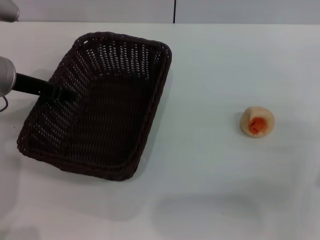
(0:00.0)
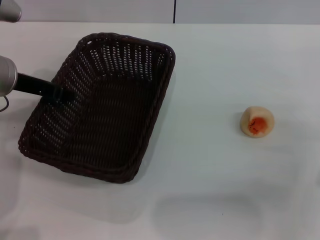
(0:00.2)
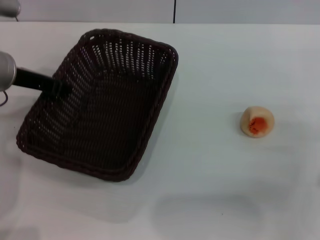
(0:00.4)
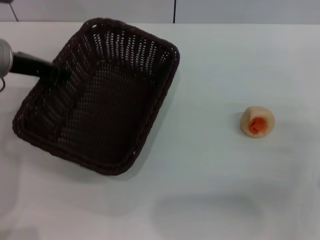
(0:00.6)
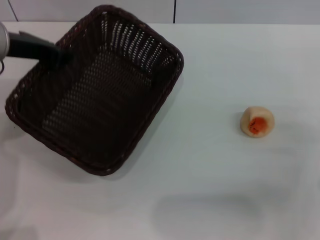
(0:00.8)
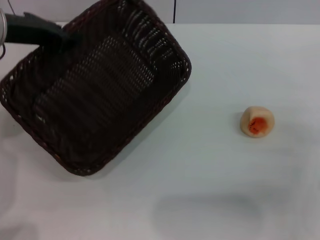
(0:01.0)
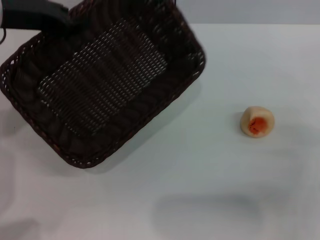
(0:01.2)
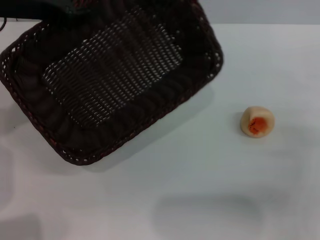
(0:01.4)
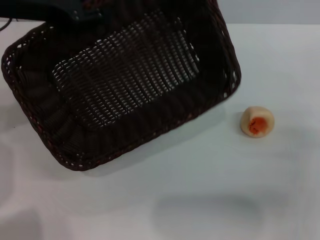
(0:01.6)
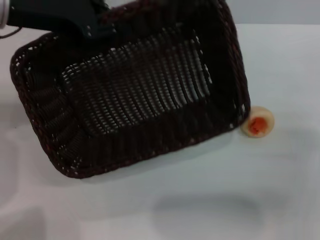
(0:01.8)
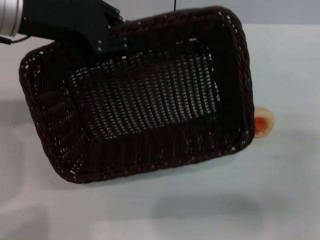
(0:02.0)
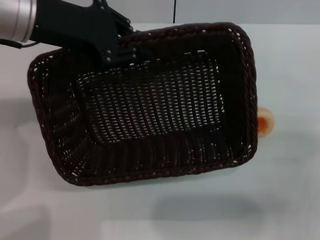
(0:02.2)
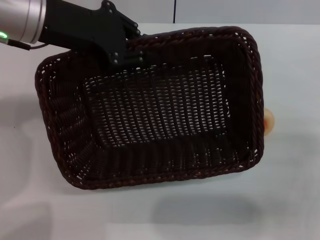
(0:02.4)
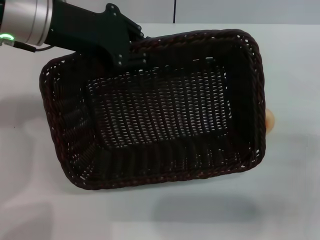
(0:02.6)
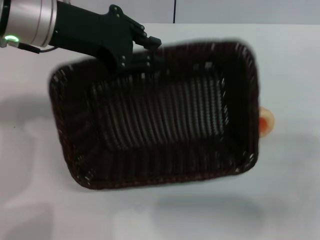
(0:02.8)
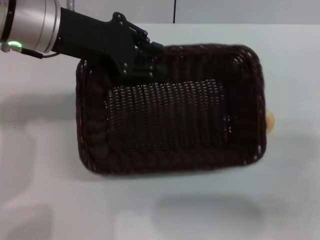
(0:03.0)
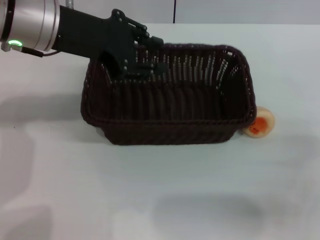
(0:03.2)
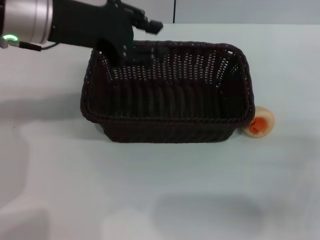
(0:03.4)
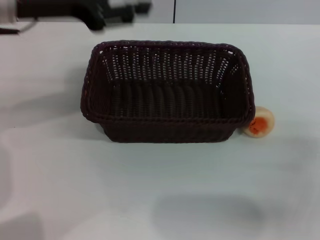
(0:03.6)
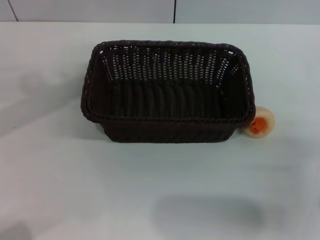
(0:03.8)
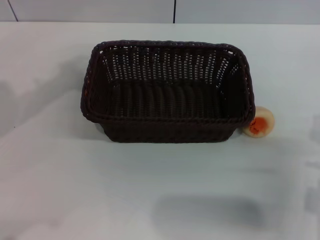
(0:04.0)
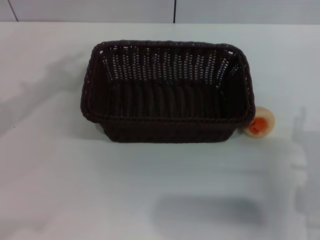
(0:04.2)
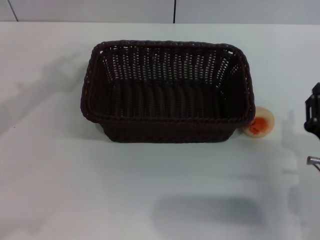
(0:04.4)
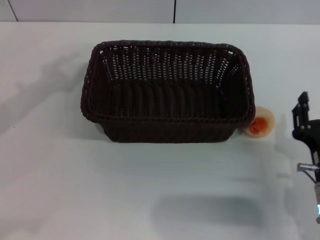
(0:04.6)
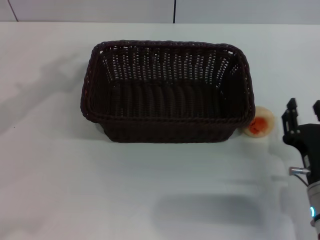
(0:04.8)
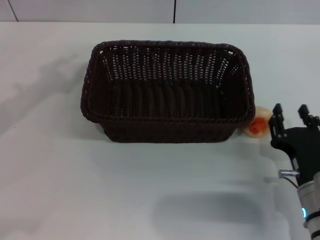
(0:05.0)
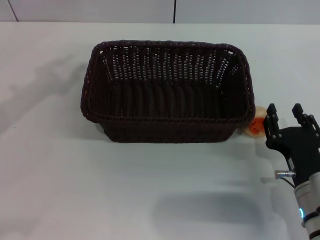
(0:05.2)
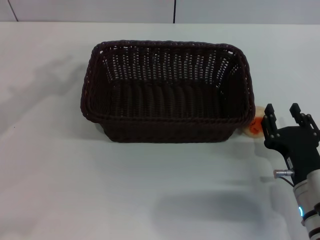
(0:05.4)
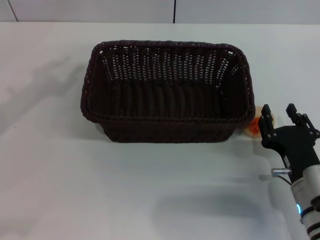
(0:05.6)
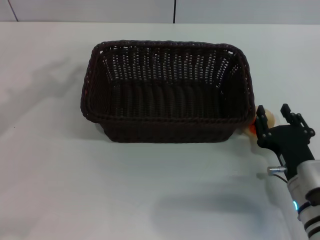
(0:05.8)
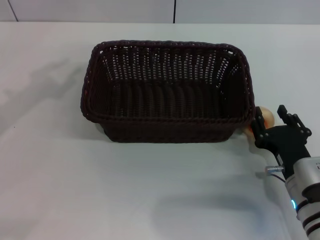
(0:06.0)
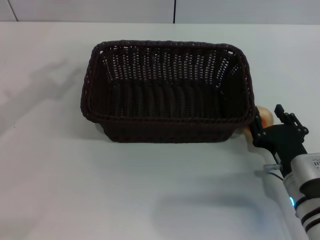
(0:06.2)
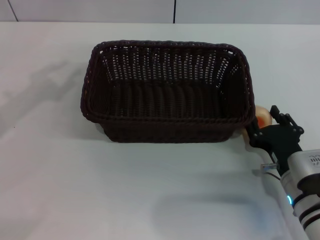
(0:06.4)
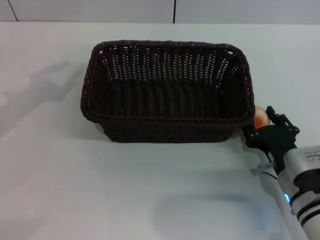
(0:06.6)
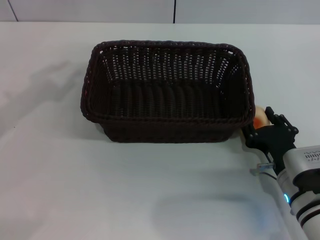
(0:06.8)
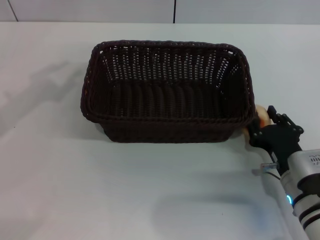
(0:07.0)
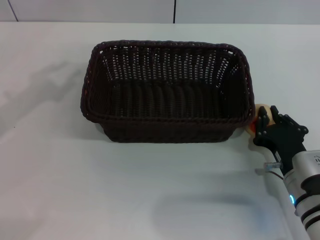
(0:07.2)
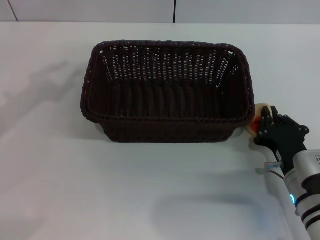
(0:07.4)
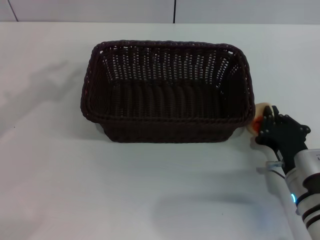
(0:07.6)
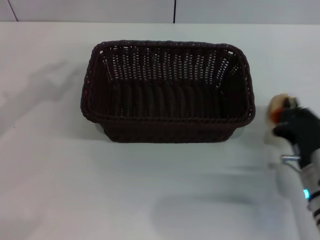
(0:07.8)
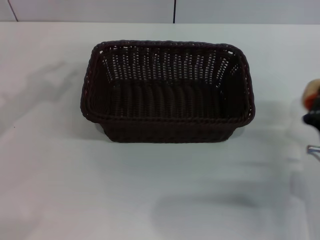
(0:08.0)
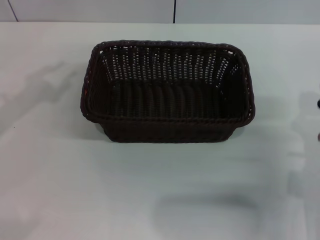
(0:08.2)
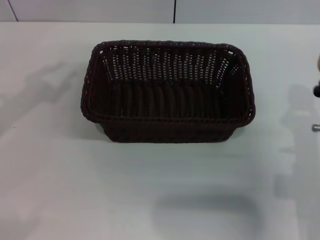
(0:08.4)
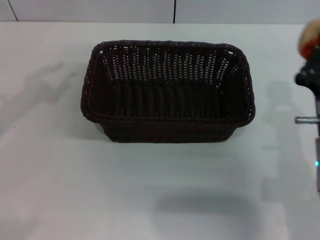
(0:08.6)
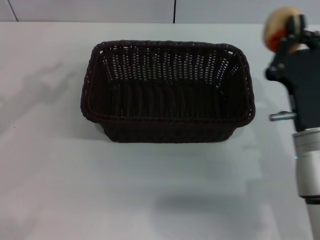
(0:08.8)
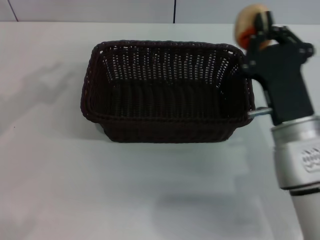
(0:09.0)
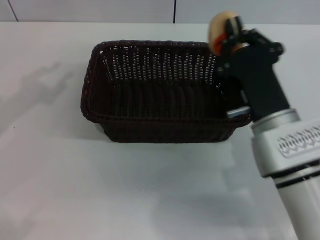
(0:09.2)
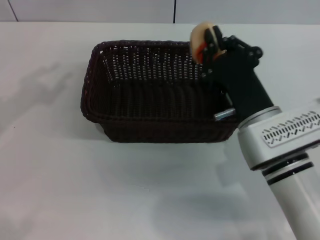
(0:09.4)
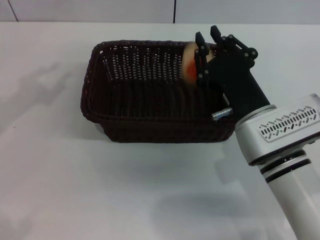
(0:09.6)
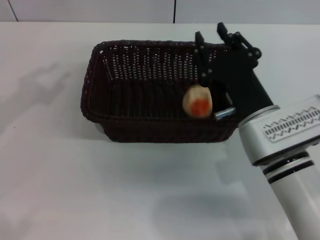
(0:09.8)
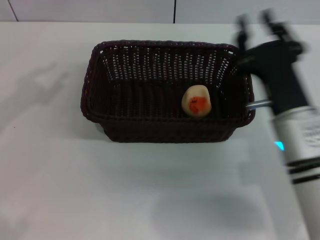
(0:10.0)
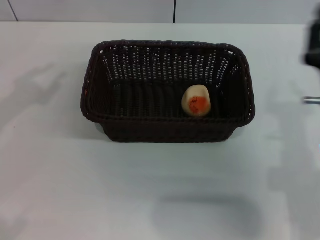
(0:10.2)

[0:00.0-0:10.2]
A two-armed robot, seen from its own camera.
Step, 0:00.0 to 0:03.4: Move the basket to the center of view with the left gripper.
Step, 0:03.6 to 0:07.8: Pick up the egg yolk pastry with the right gripper.
Step, 0:08.0 to 0:10.0: Place the egg yolk pastry into the basket with the right gripper.
0:00.0 to 0:01.4: The left gripper travels upward by some 10 cm, and closes up.
0:01.4 to 0:03.0: The left gripper goes about 5 cm to the right.
0:03.0 to 0:04.4: The left gripper shifts roughly 15 cm to the left. The right gripper goes approximately 5 cm to the left.
0:04.4 to 0:05.8: The grippers stay close to where they were, moving slightly.
0:05.8 to 0:07.2: There are only small adjustments of the grippers.
0:07.2 to 0:08.8: The right gripper goes about 10 cm upward, and closes.
0:08.8 to 0:10.2: The right gripper opens its fingers.

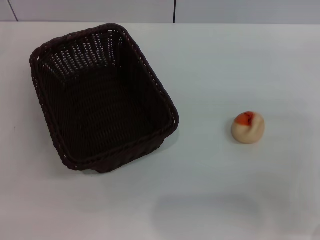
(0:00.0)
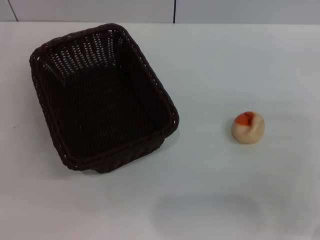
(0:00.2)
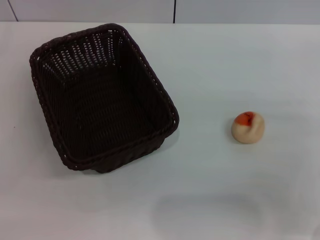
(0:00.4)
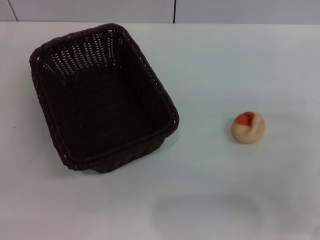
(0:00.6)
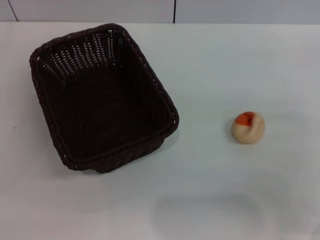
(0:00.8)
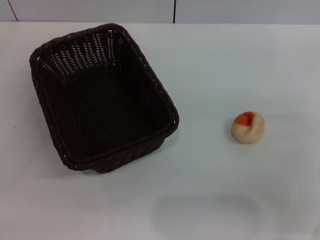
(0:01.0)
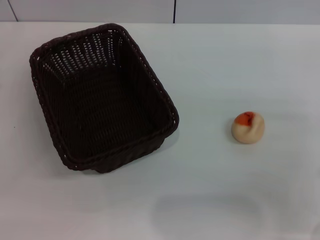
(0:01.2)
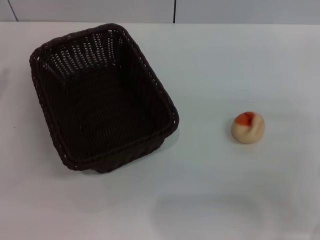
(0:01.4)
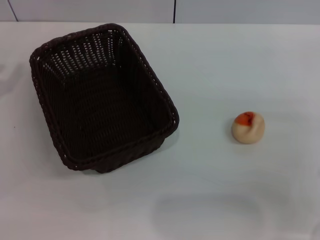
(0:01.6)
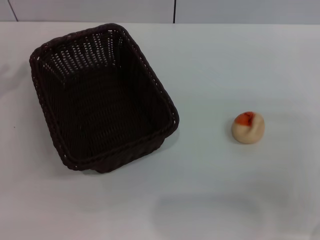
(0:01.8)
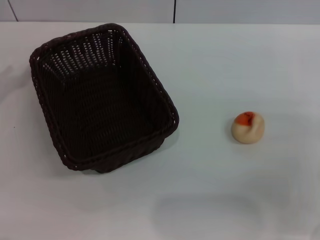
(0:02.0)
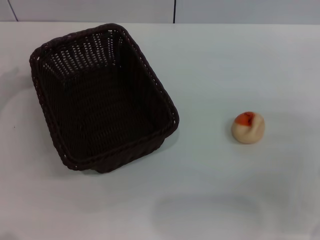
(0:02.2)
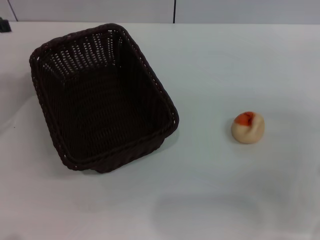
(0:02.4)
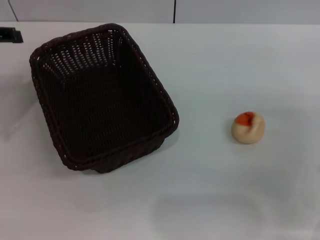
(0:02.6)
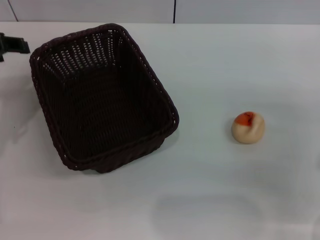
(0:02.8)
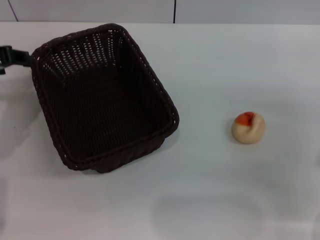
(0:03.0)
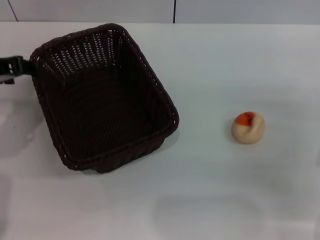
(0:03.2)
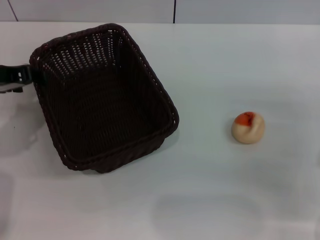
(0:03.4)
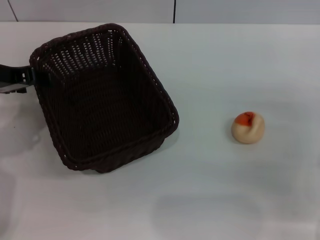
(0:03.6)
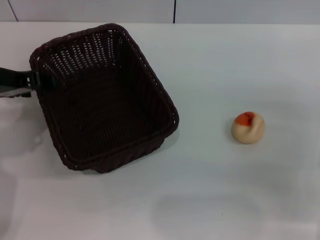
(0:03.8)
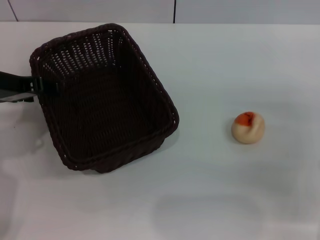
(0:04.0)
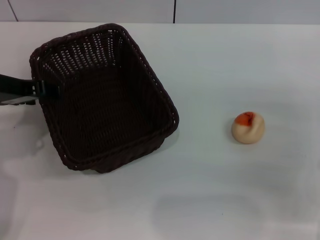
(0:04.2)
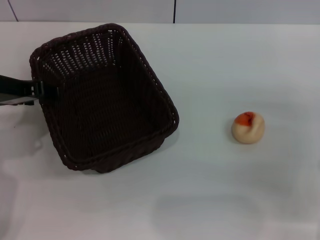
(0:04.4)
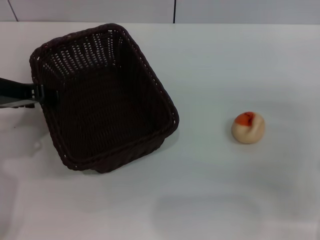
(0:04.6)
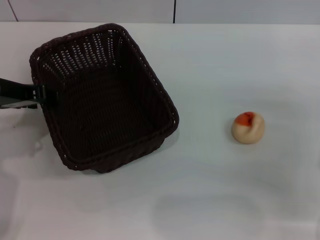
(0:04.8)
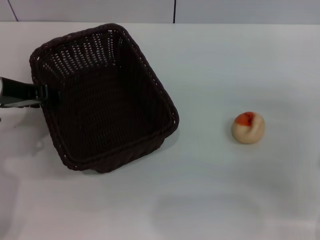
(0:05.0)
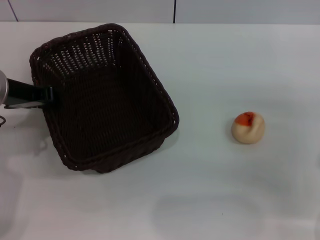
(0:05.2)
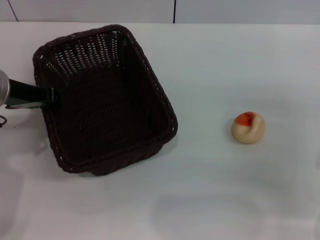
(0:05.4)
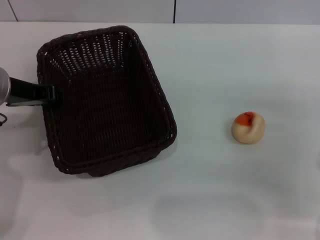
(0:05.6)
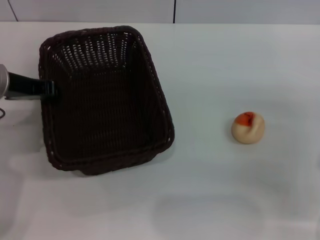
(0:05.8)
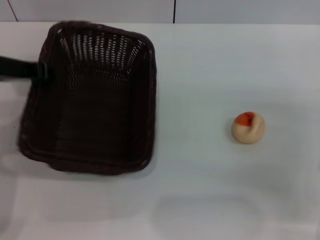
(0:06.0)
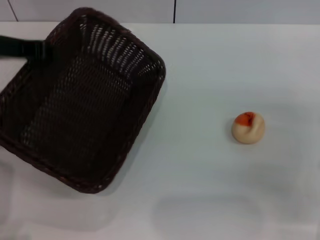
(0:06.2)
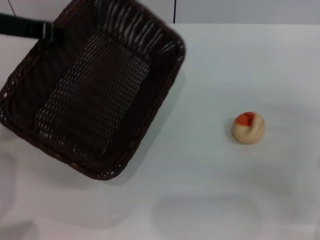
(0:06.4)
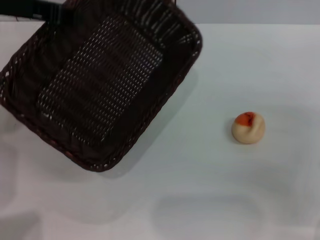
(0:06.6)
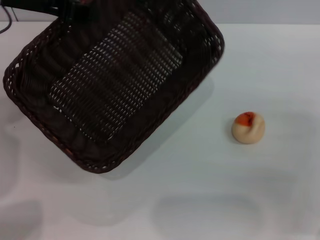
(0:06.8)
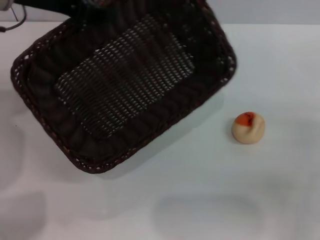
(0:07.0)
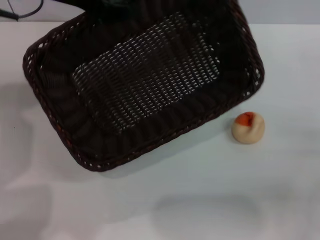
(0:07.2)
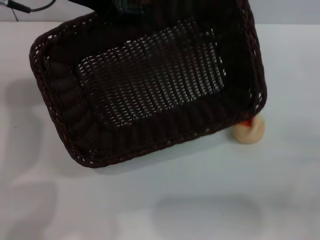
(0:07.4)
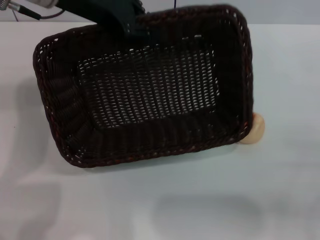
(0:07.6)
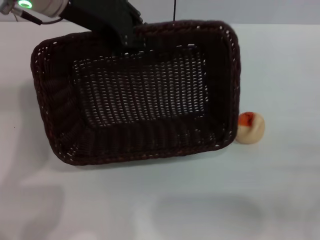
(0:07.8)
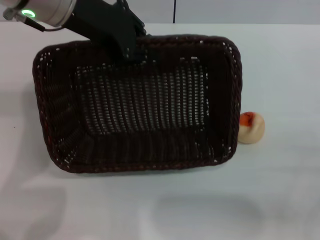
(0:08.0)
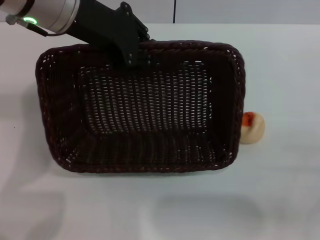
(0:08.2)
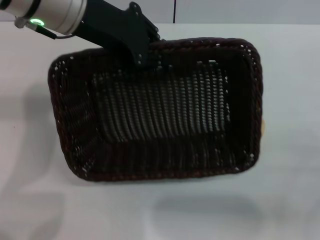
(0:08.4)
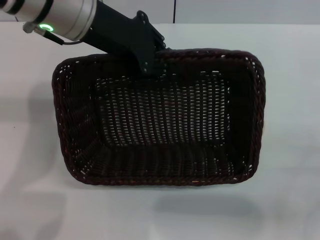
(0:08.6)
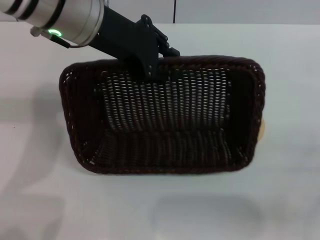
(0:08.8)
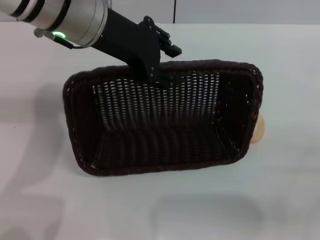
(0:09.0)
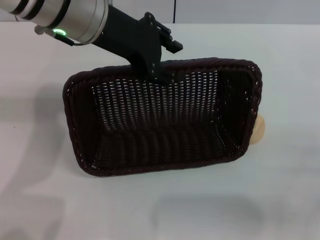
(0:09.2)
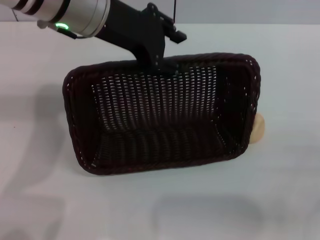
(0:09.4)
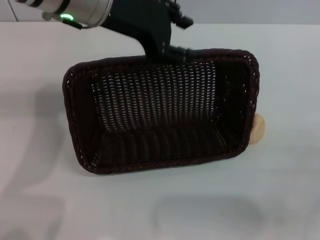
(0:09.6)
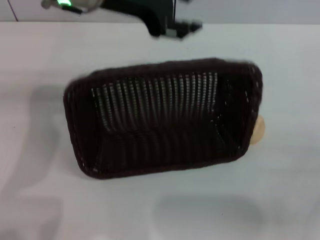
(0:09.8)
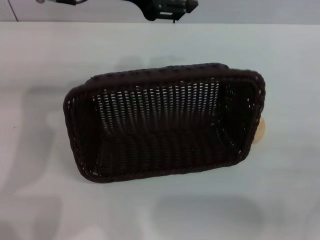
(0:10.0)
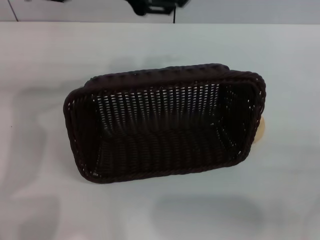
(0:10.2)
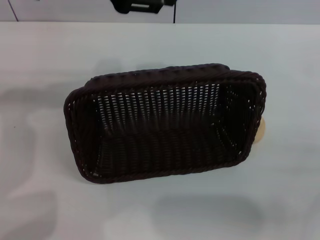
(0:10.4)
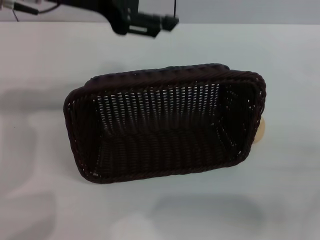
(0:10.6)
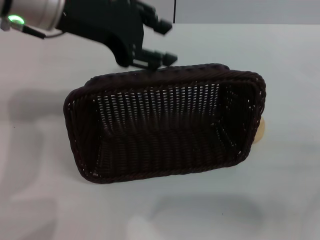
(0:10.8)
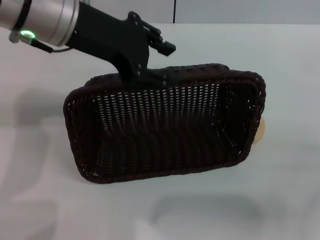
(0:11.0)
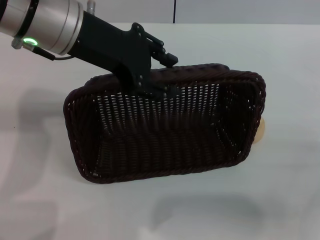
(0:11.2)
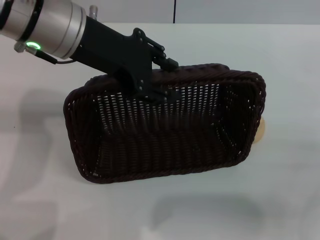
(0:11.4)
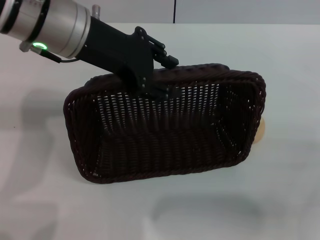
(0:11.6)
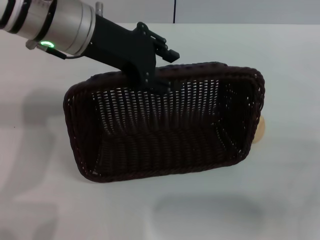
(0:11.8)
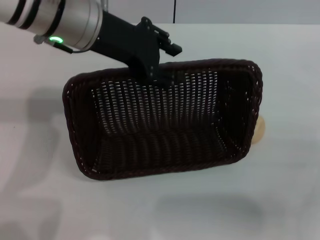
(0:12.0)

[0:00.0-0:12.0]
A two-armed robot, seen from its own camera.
0:01.6 to 0:03.0: The left gripper shifts some 15 cm to the right and upward.
0:03.0 to 0:04.4: The grippers move only a little.
0:04.4 to 0:06.0: The left gripper closes up.
0:06.0 to 0:07.6: The left gripper is displaced to the right and upward by about 10 cm. Meanwhile the right gripper heads backward, covering about 5 cm.
0:07.6 to 0:09.0: The left gripper ends up approximately 5 cm from where it was, and opens.
0:09.0 to 0:10.4: The left gripper moves to the left, approximately 5 cm, and opens its fingers.
0:10.4 to 0:12.0: The left gripper heads downward, covering roughly 5 cm.
